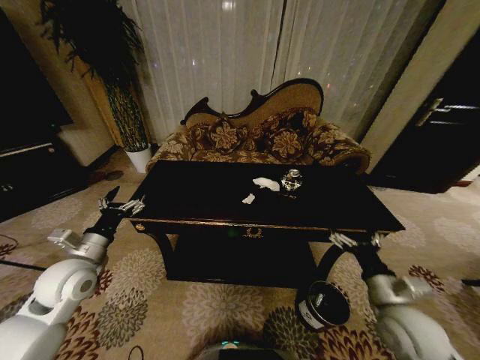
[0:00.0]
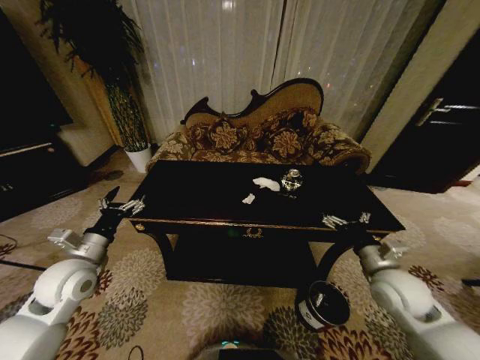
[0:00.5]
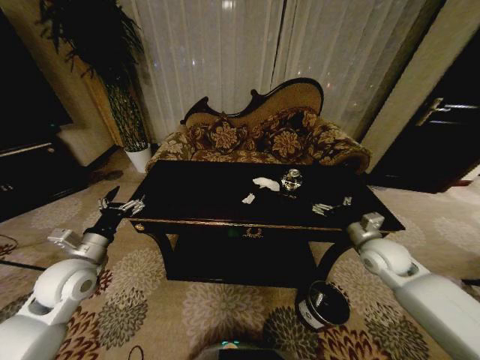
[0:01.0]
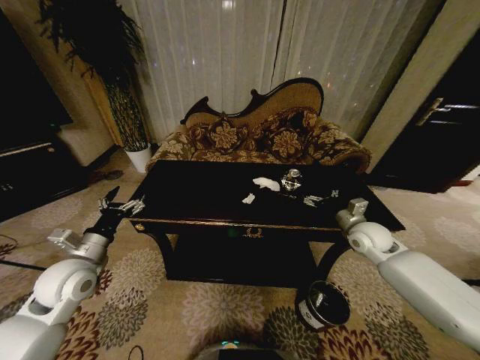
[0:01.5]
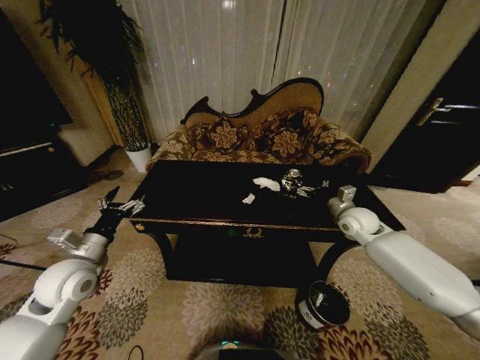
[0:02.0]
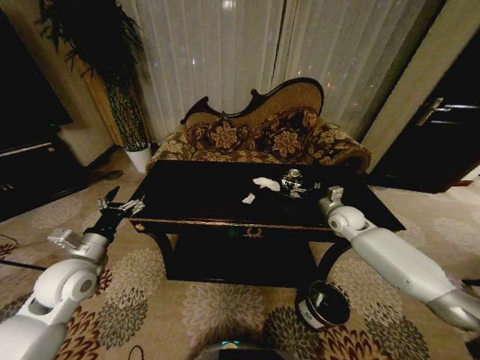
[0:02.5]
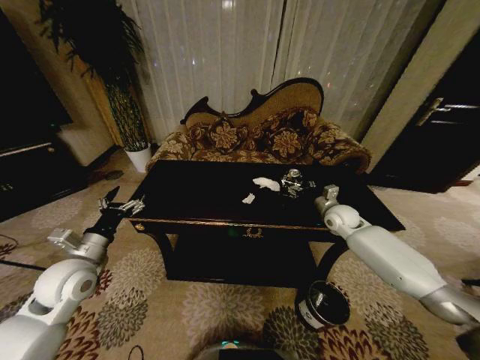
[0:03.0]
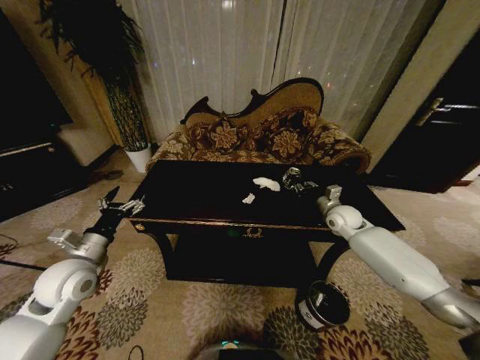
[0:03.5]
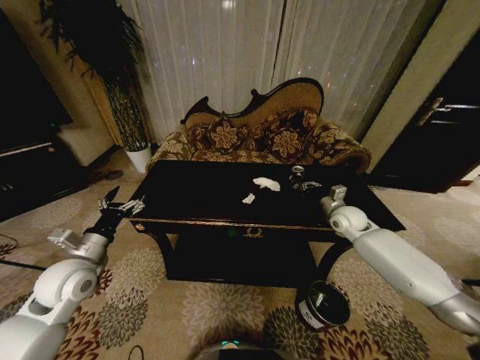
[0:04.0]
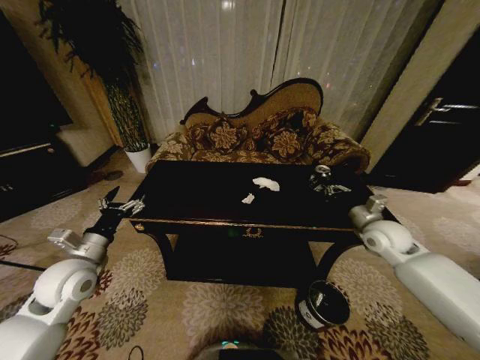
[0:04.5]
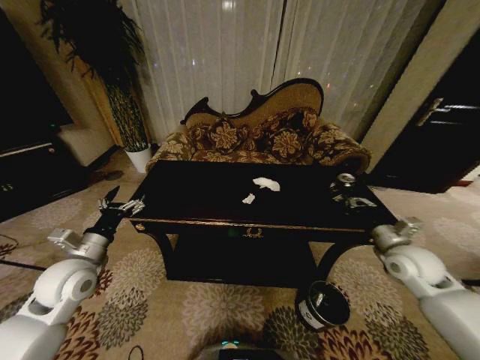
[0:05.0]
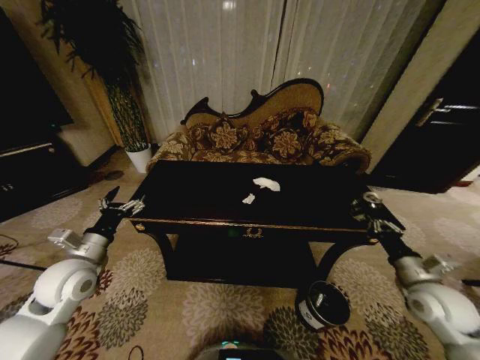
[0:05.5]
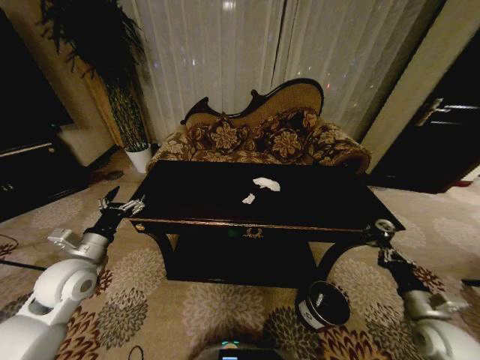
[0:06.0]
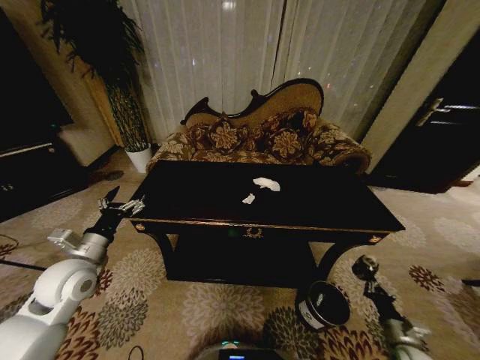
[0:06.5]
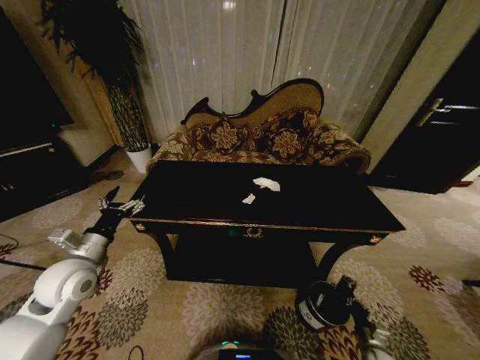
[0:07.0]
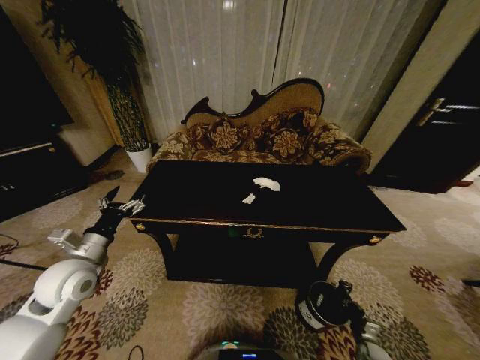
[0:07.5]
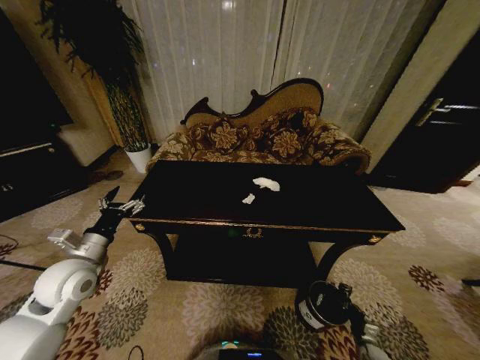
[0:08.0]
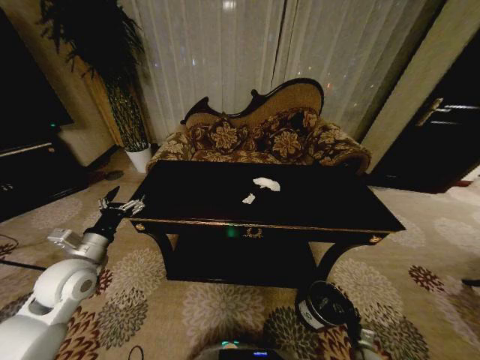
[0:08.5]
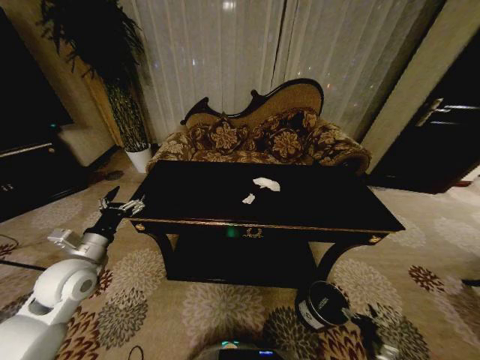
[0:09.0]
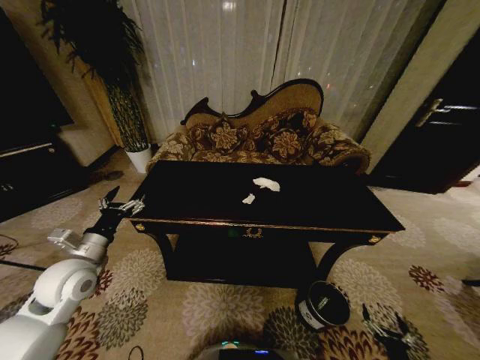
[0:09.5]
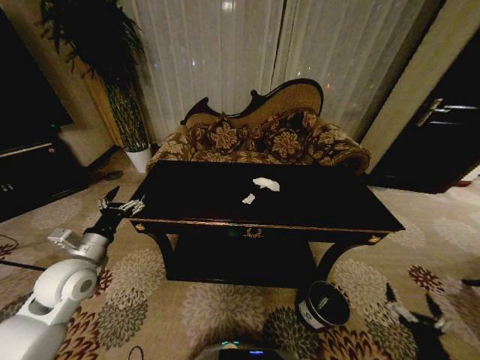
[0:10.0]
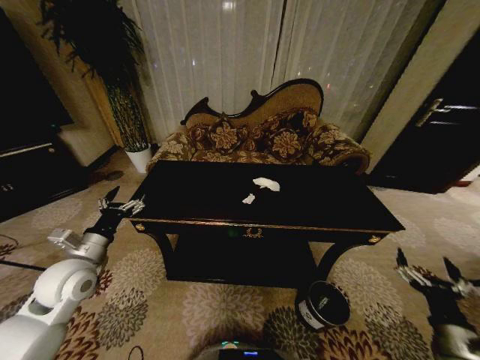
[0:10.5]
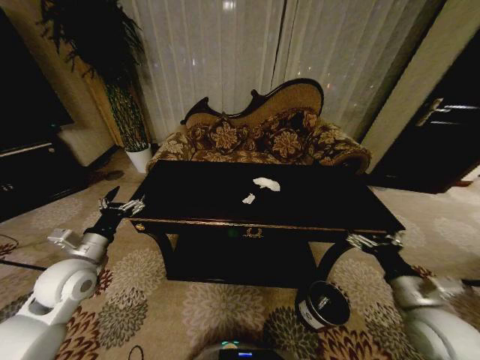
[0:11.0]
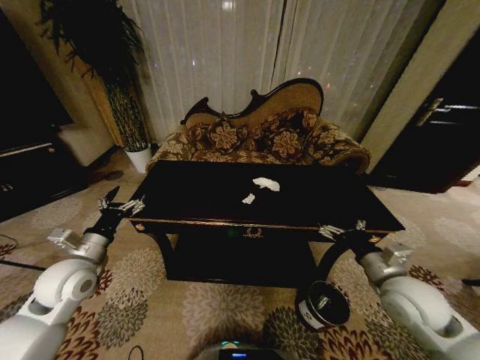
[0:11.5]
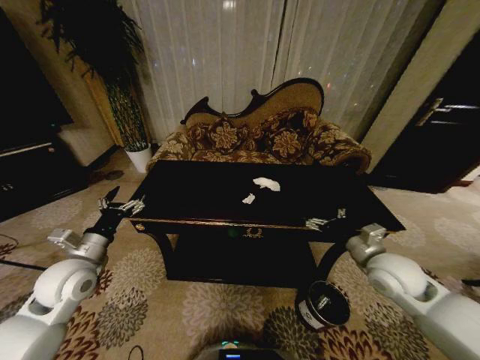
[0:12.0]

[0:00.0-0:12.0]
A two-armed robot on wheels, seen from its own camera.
Task of the whole recording: Move to the front of the table and place the trash on the table into the trash bin.
0:00.0 to 0:02.0: The right gripper is displaced forward by approximately 25 cm.
0:02.0 to 0:04.0: The right gripper closes its fingers.
0:04.0 to 0:06.0: The right gripper is displaced backward by some 30 cm.
0:06.0 to 0:08.0: The right gripper travels downward by about 30 cm.
0:08.0 to 0:10.0: The right gripper travels upward and backward by roughly 25 cm, and opens up.
0:10.0 to 0:12.0: The right gripper travels forward, upward and to the left by roughly 35 cm.

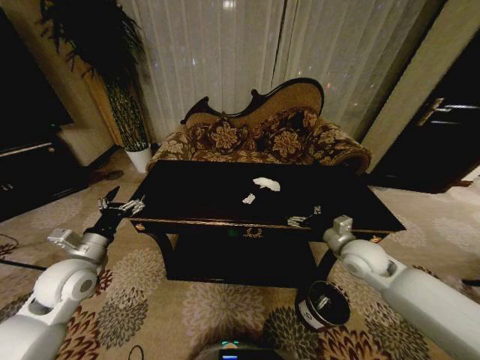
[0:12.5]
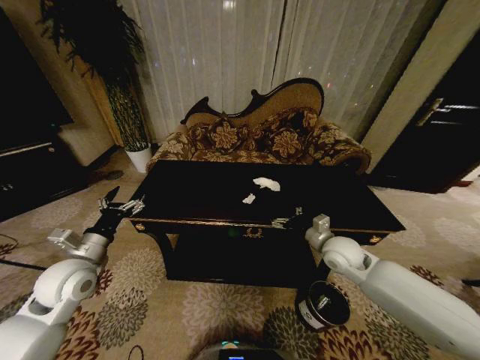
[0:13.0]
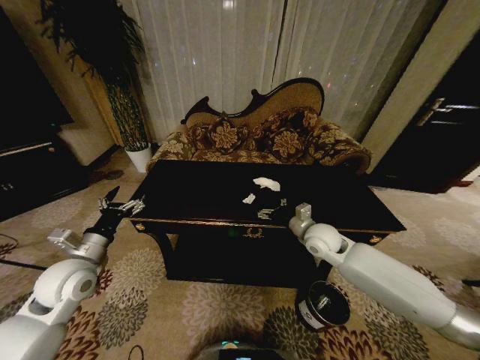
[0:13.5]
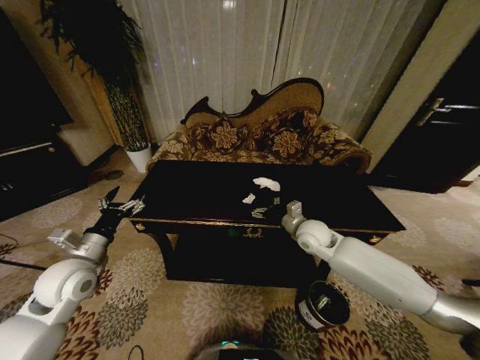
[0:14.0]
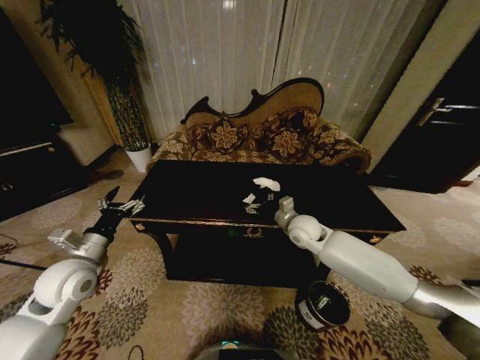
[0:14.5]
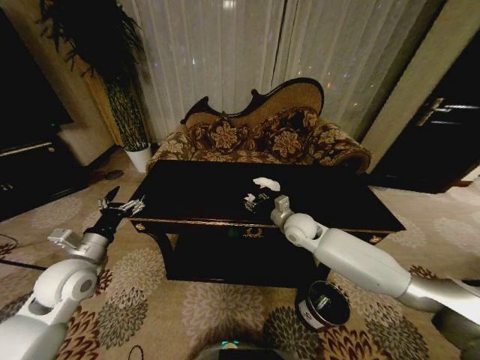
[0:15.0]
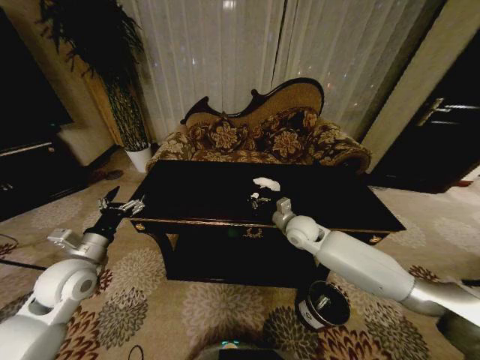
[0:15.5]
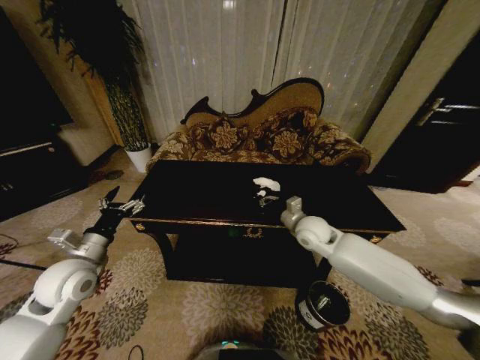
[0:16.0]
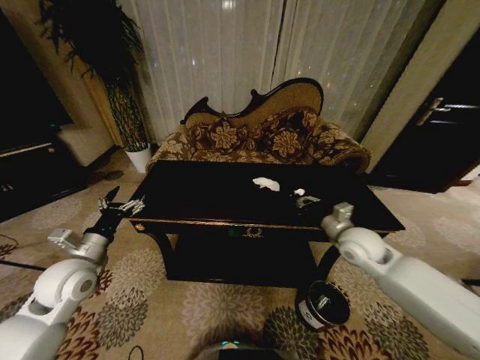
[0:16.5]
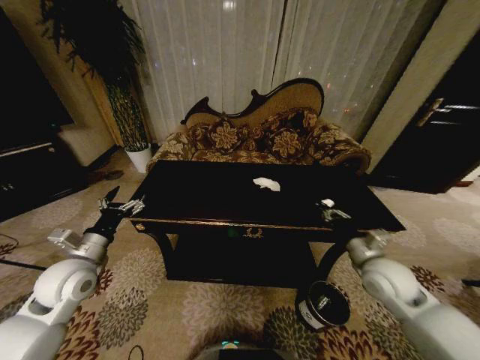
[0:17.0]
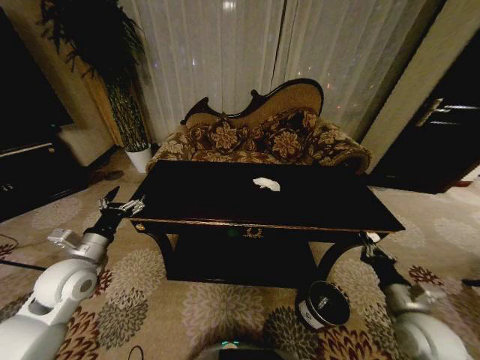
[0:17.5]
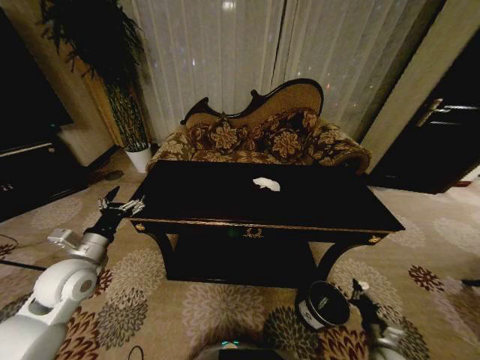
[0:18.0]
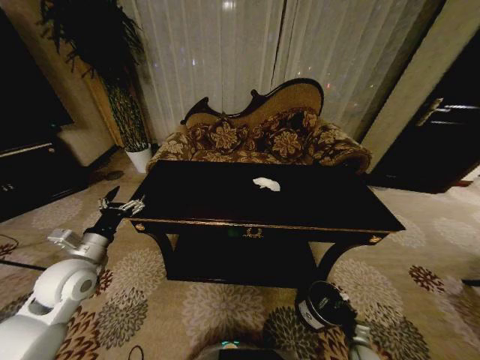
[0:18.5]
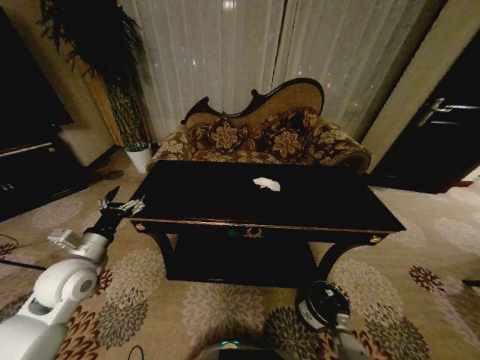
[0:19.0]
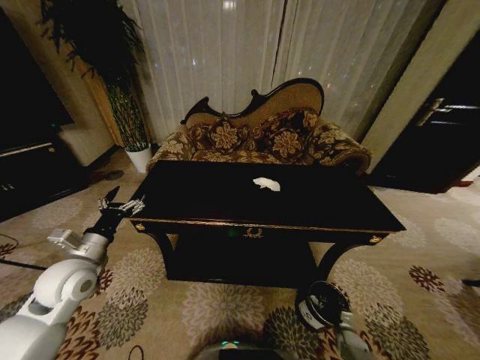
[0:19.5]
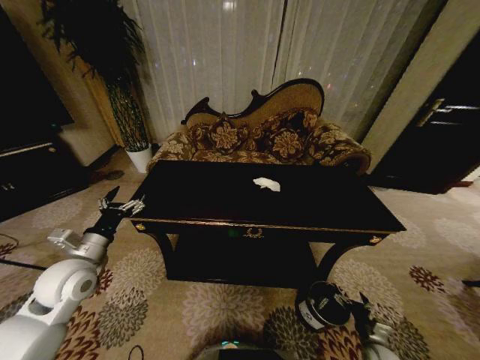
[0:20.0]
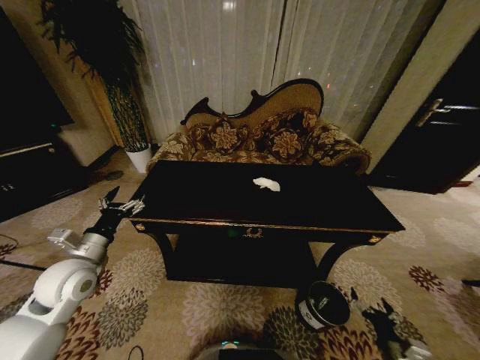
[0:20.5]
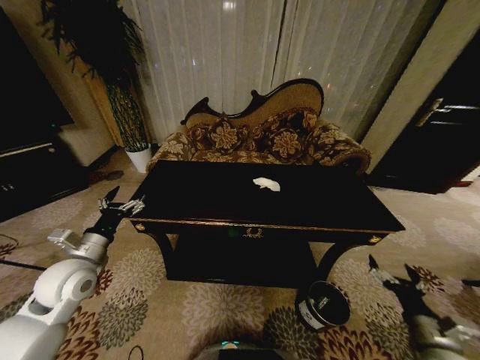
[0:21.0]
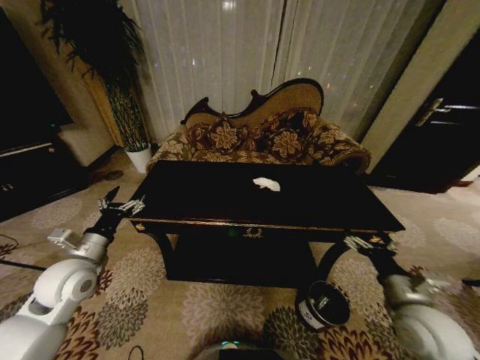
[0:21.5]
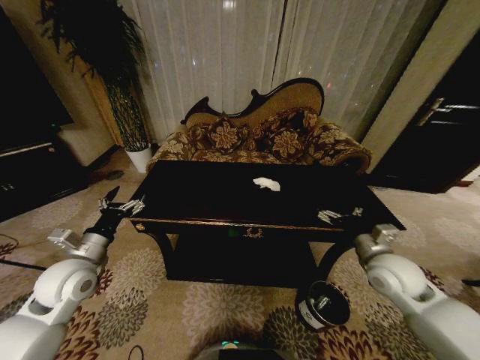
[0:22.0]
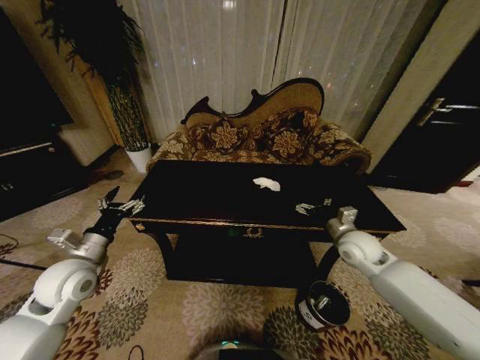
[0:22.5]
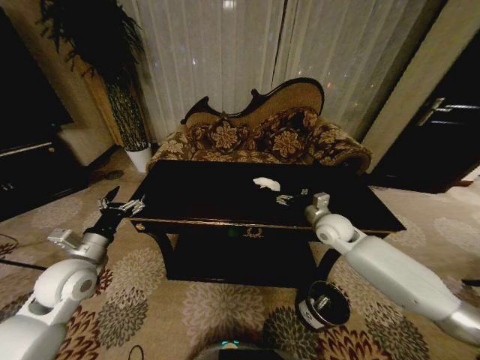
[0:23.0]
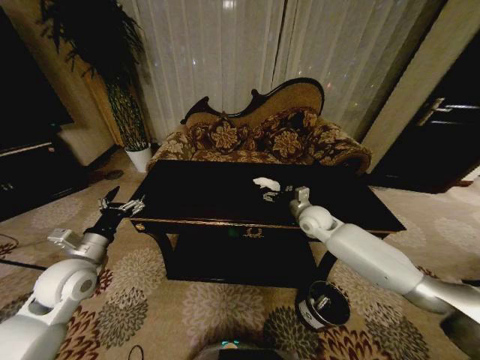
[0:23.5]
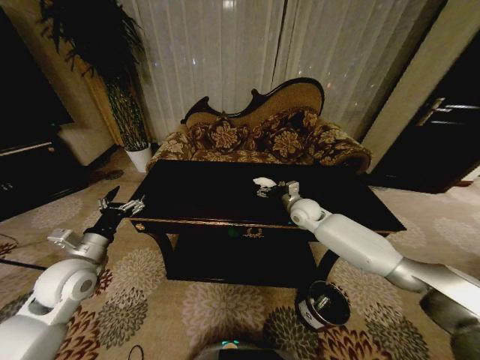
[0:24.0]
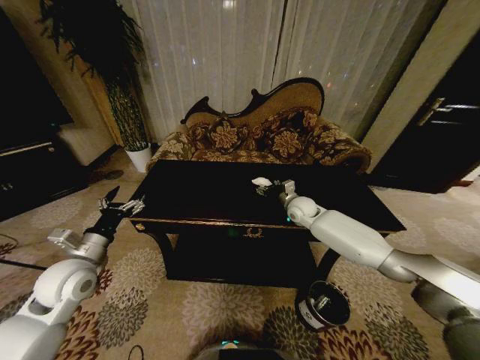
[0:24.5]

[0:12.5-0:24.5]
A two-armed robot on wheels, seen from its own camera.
Task of the whole recording: Move to the front of the table and place the trash on the table into the trash bin.
0:12.5 to 0:14.5: The right gripper is displaced to the left and forward by about 15 cm.
0:14.5 to 0:16.5: The right gripper is displaced to the right and backward by some 15 cm, and closes up.
0:16.5 to 0:18.5: The right gripper moves downward and backward, about 40 cm.
0:18.5 to 0:20.5: The right gripper travels upward by roughly 15 cm, and opens its fingers.
0:20.5 to 0:22.5: The right gripper shifts some 35 cm forward and upward.
0:22.5 to 0:24.5: The right gripper goes approximately 20 cm forward and to the left.

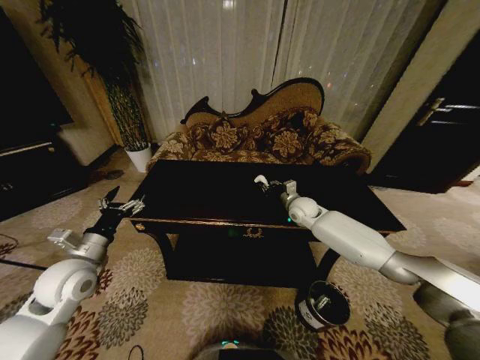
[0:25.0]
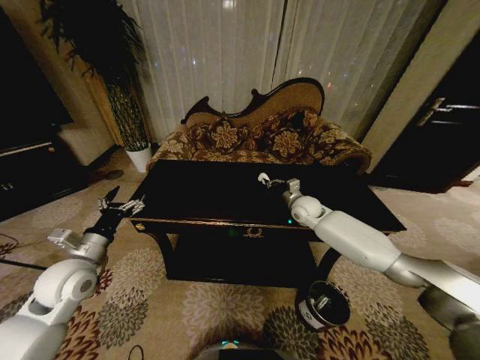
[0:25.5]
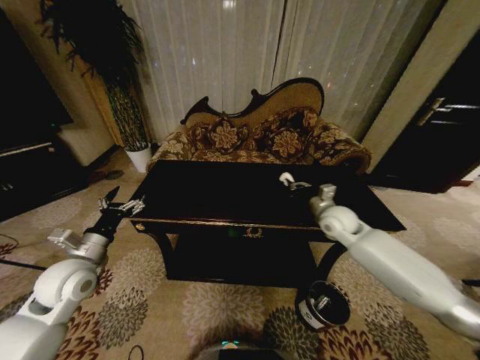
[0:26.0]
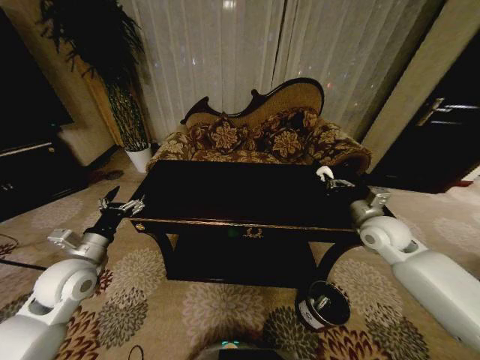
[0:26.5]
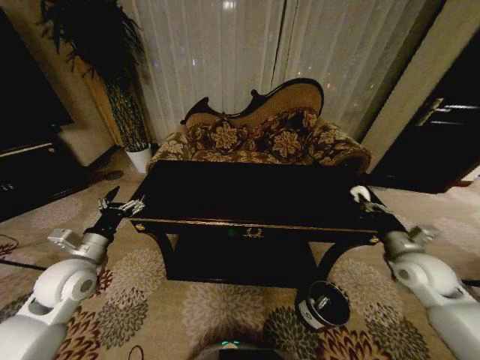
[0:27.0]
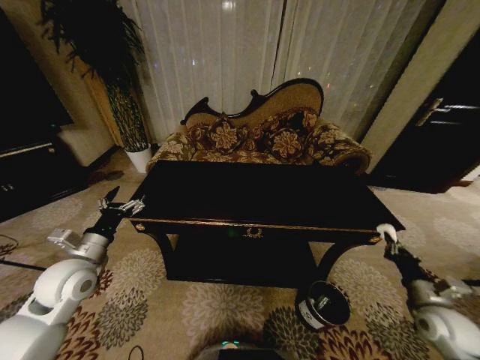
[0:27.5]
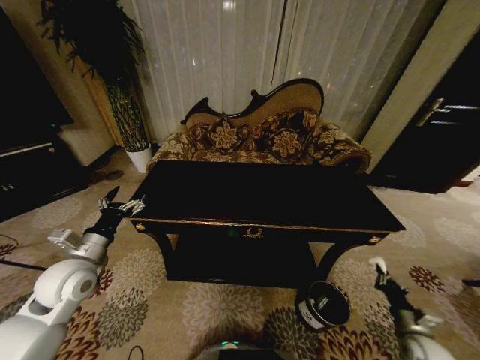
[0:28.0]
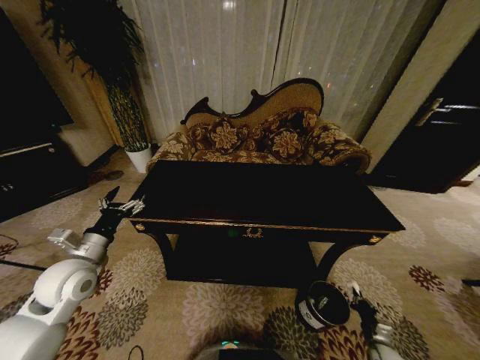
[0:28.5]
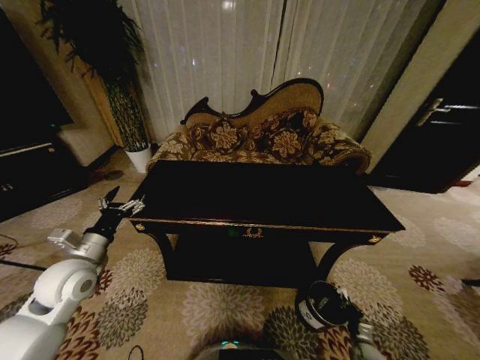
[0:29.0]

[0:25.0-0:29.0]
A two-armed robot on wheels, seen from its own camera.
Task of the whole recording: Move to the front of the table and place the trash on the table into the trash bin.
0:25.0 to 0:27.0: The right gripper goes approximately 30 cm backward and to the right.
0:27.0 to 0:29.0: The right gripper moves downward, about 40 cm.
